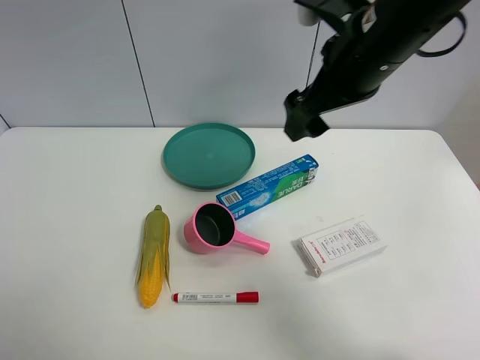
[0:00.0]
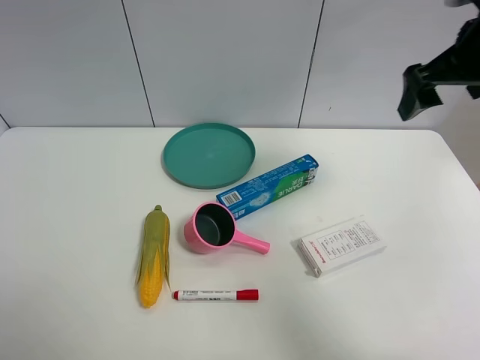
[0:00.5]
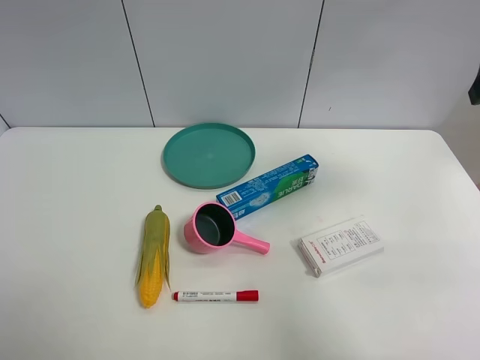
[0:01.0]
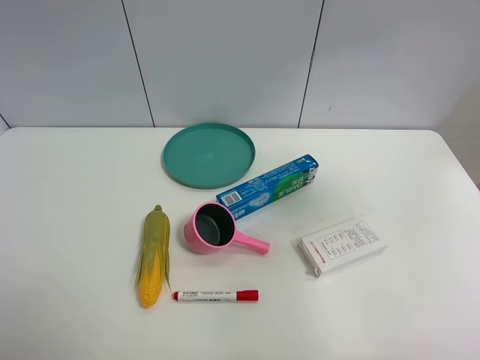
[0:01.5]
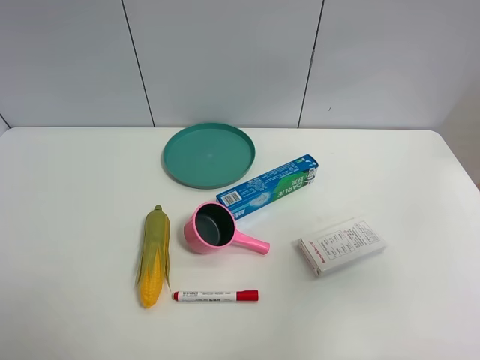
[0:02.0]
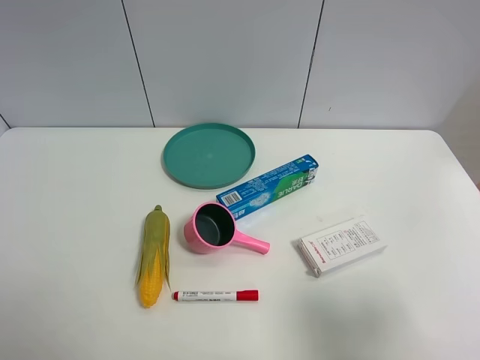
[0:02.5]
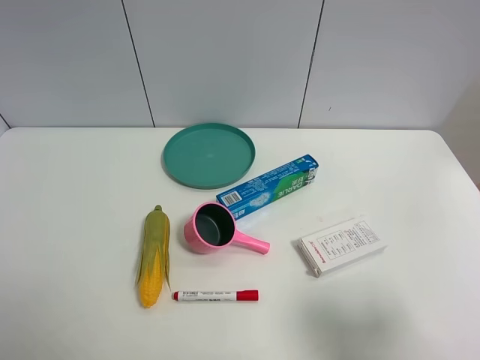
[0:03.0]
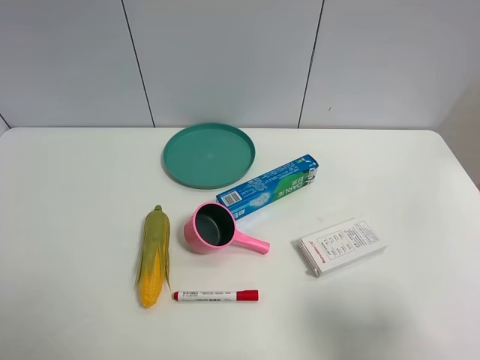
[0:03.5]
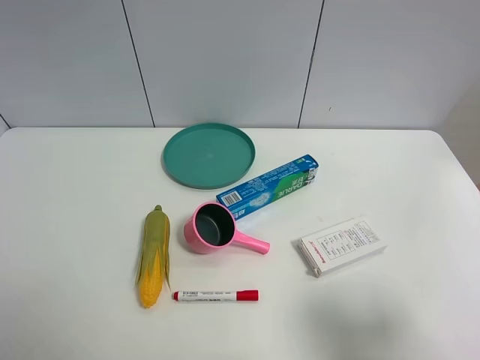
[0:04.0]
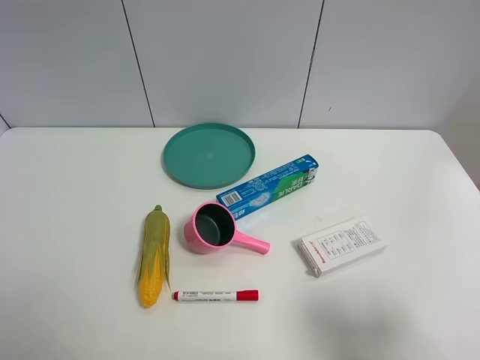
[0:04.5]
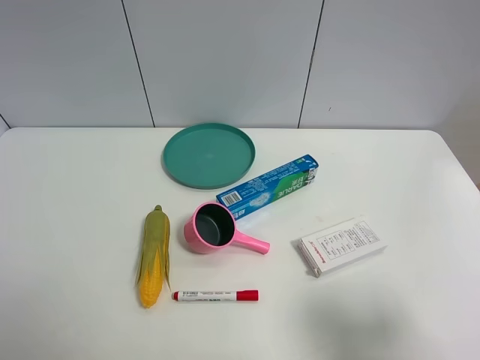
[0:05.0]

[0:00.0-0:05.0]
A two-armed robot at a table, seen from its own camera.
Task of the whole recording: the gripper move the object.
0:00.0 to 0:02.5: The right gripper travels backward and to the right by approximately 35 cm.

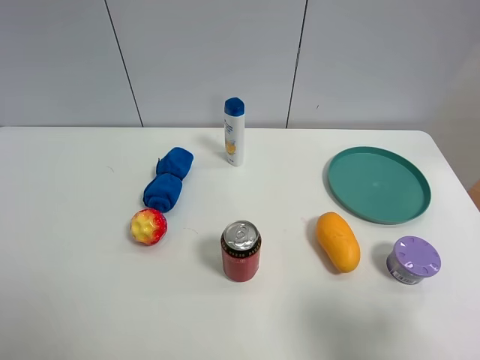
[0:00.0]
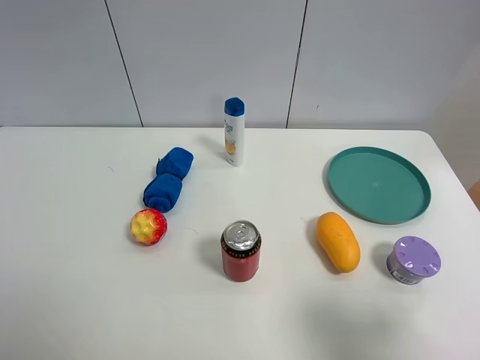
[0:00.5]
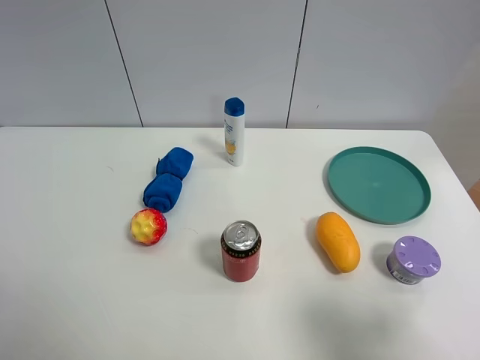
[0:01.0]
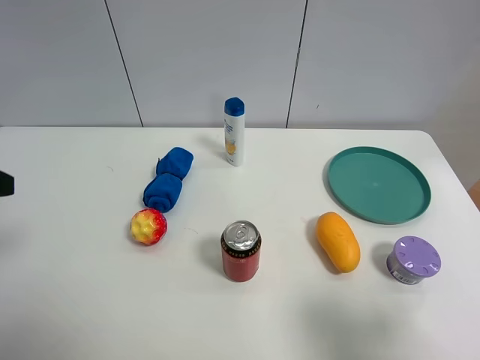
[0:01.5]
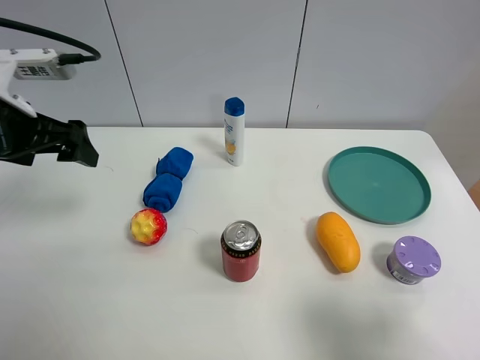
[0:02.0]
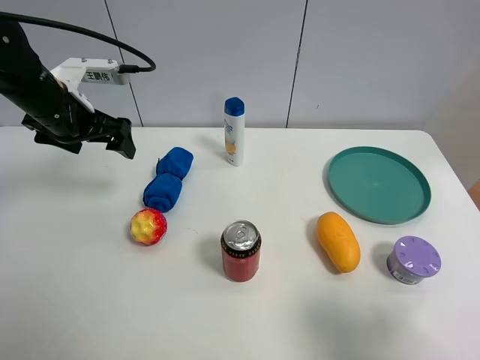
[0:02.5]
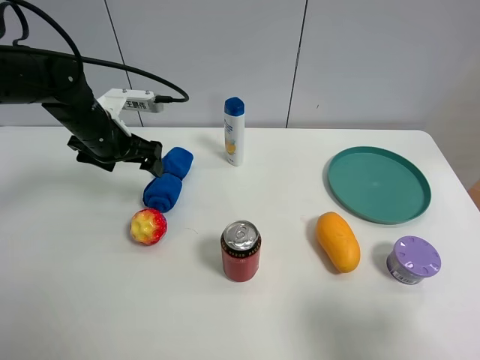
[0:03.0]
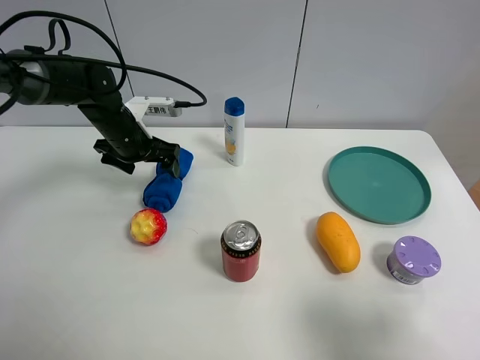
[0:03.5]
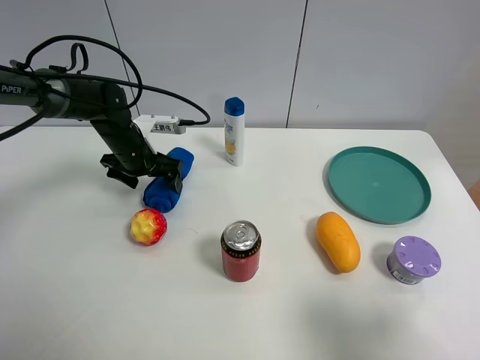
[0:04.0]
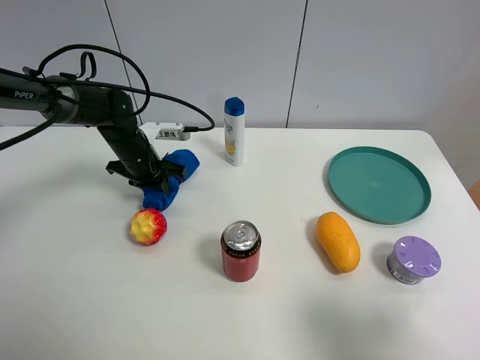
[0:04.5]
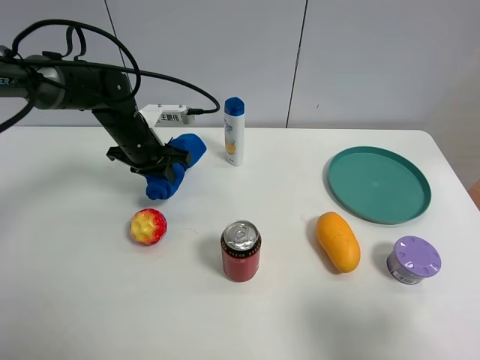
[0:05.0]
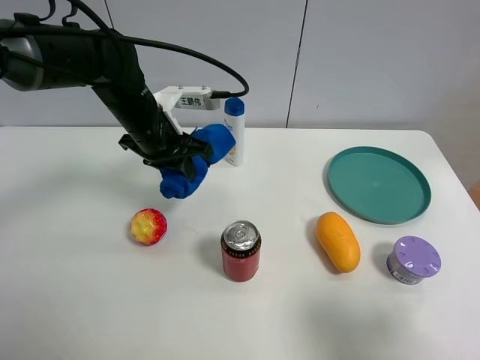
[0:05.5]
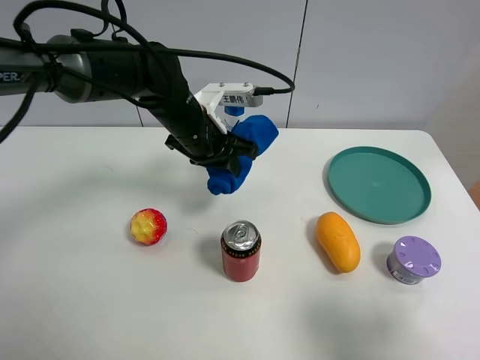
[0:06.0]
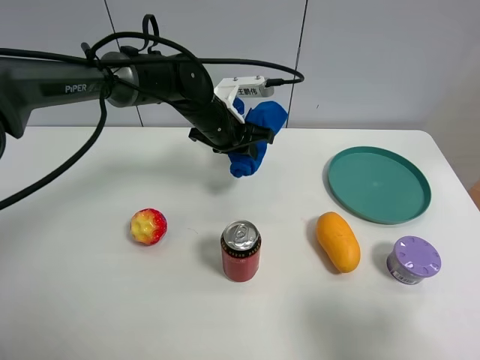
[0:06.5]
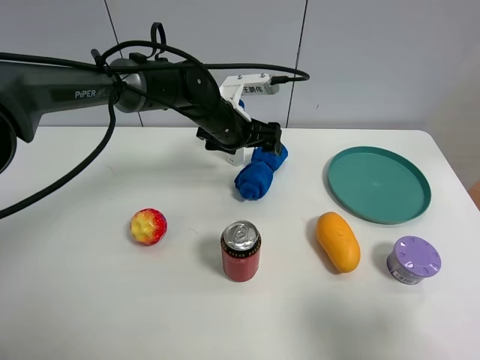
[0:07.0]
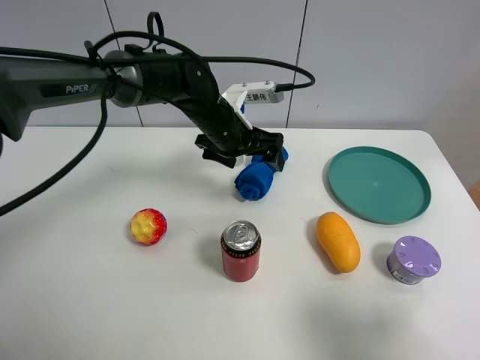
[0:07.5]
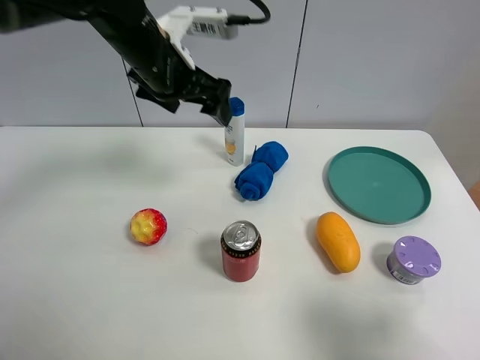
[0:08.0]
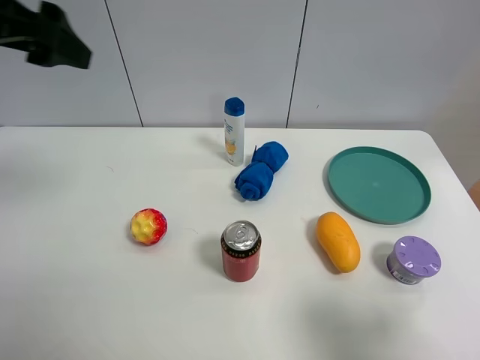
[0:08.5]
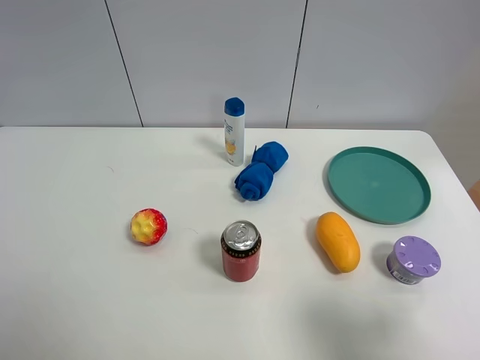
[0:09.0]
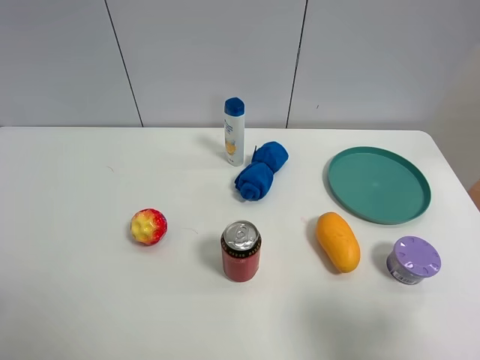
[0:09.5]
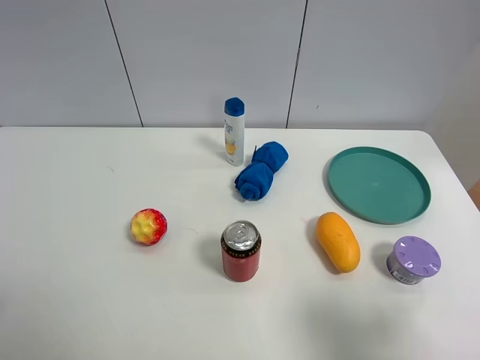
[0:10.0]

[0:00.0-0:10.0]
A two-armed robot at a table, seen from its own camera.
Task of the whole recording: the gripper move the object.
Step, 0:00.0 to 0:04.0: Grasp the blue towel with the left gripper.
Step, 0:04.5 to 0:07.0: Place the blue towel on the table with the left gripper.
0:00.0 to 0:02.0: The left gripper goes some 25 cm forward.
0:02.0 to 0:04.0: The left gripper goes roughly 20 cm downward, forward and to the right.
0:04.0 to 0:06.0: The left gripper heads to the right, upward and backward, covering approximately 15 cm, and closes its fingers.
0:06.0 to 0:08.0: The left gripper travels upward by roughly 10 cm, and opens up.
0:08.0 to 0:10.0: The left gripper goes some 40 cm backward and to the left.

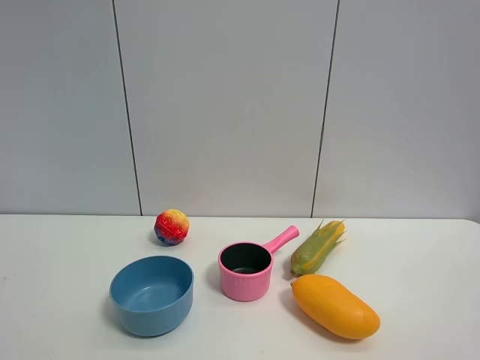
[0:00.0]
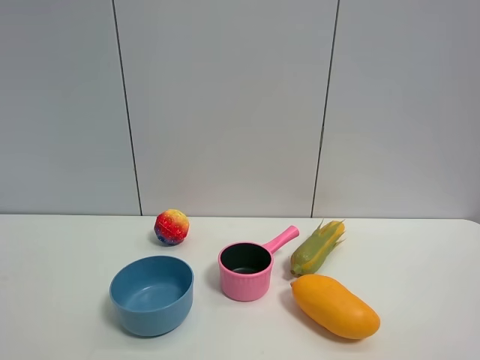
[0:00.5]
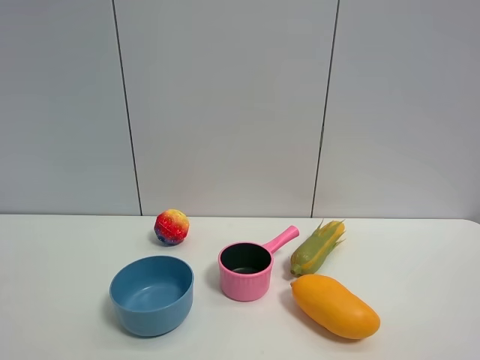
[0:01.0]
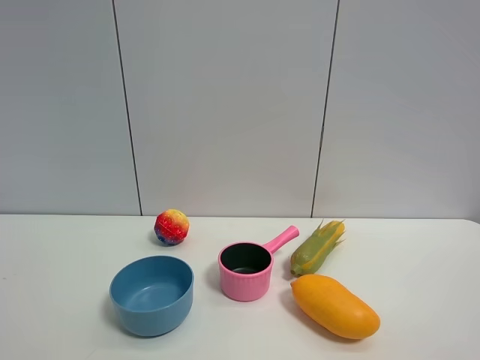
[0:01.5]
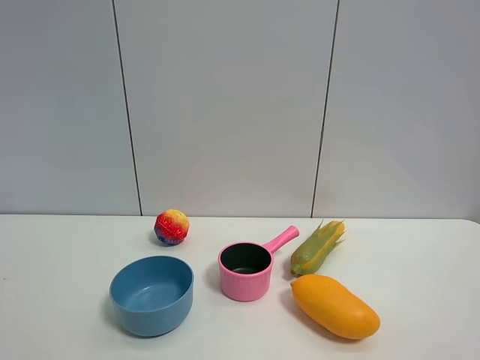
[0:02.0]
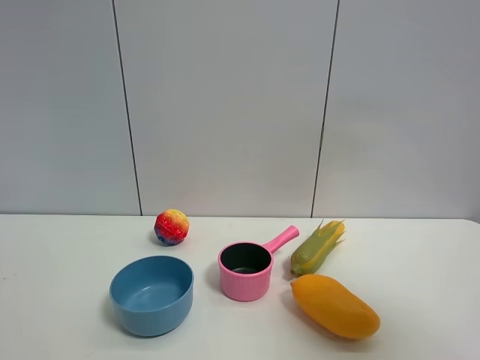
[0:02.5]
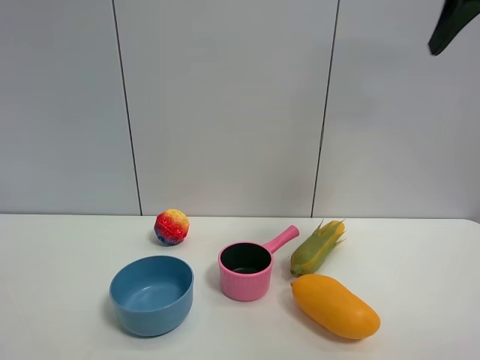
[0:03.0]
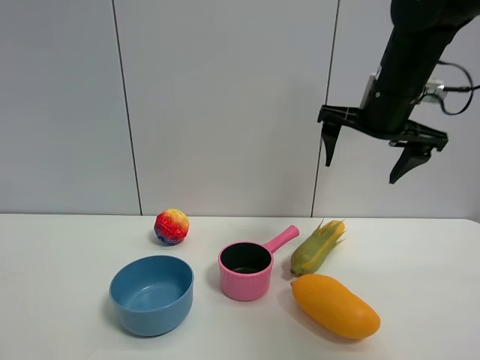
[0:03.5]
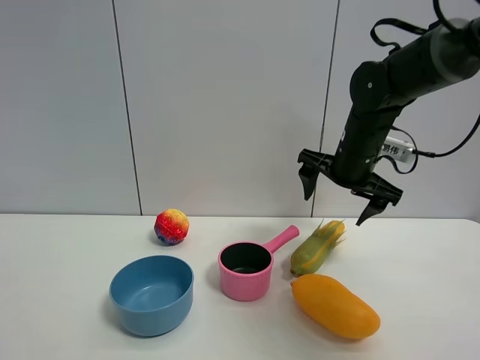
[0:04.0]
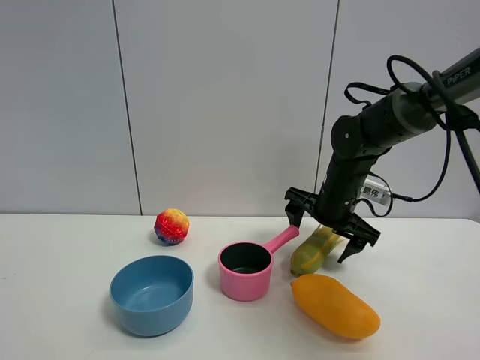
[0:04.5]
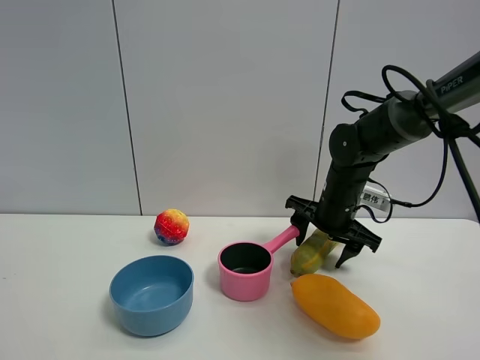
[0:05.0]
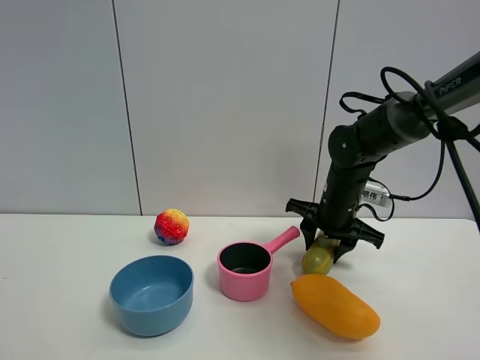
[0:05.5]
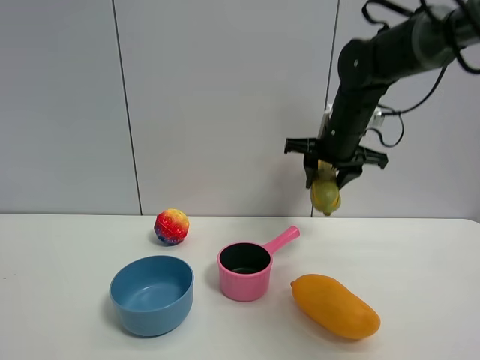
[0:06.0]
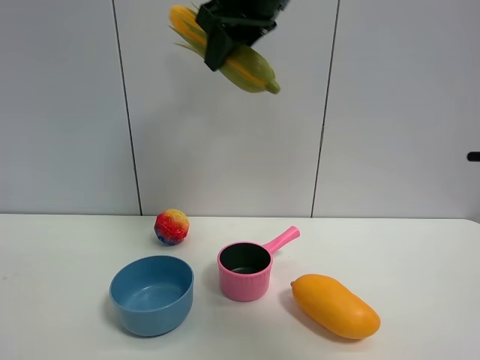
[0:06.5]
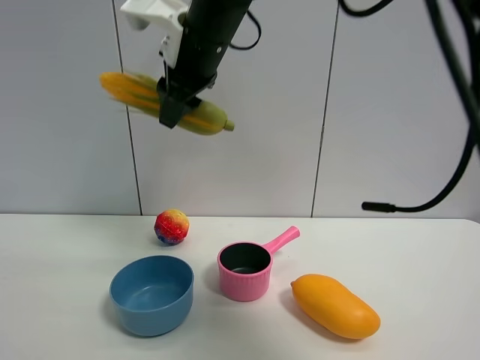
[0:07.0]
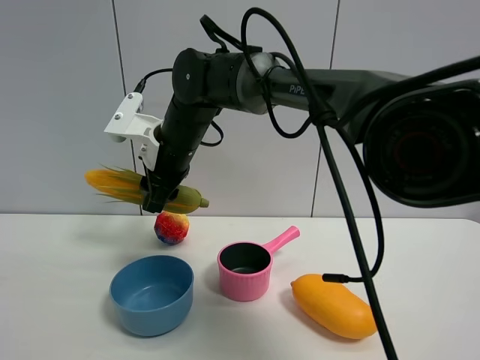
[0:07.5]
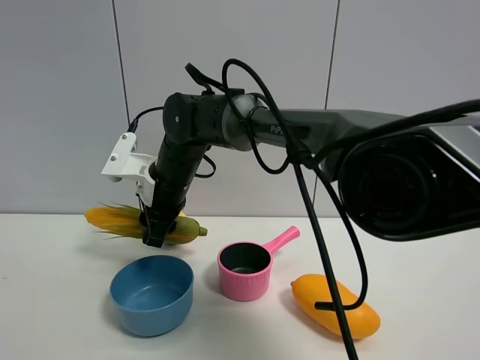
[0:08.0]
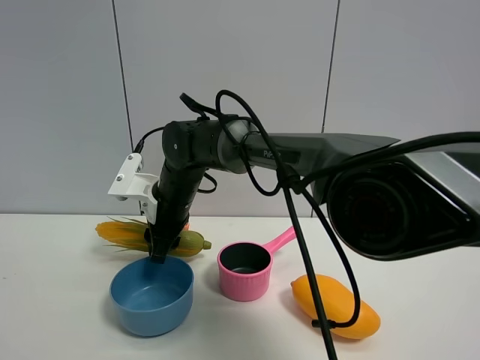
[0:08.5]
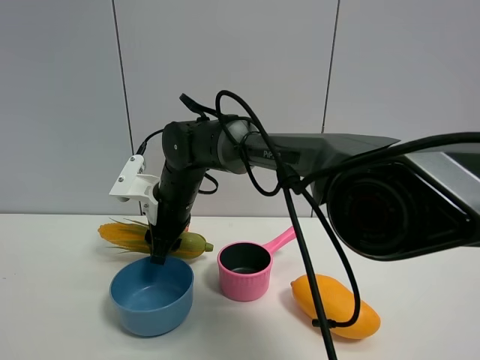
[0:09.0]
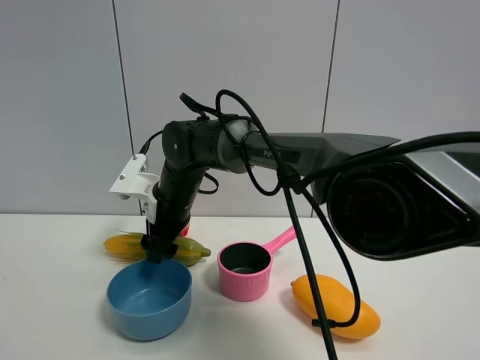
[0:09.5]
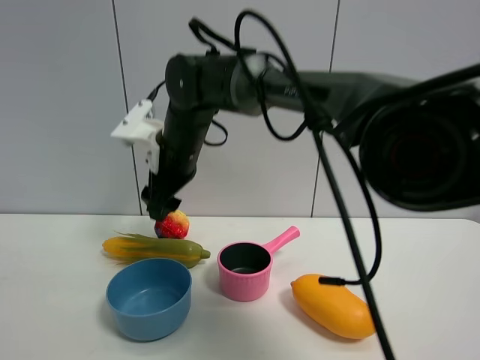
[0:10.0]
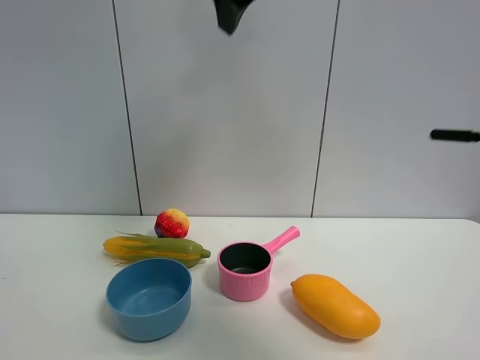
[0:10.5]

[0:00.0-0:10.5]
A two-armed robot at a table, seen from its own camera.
Task of the whole recording: the gripper move the object.
Step, 0:00.0 to 0:05.0: Grasp the corn with the right gripper.
Step, 0:05.5 to 0:09.5: Place the corn on the table with the right gripper.
0:00.0 to 0:02.0: Neither gripper changes place.
0:02.0 to 0:04.0: The right gripper shifts roughly 40 cm forward.
0:04.0 to 0:06.5: The right gripper travels upward and to the left by approximately 25 cm, and closes up.
0:06.5 to 0:08.5: The right gripper shifts approximately 30 cm downward.
0:08.5 to 0:10.5: The right gripper shifts approximately 35 cm upward, and opens.
